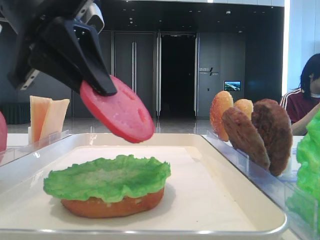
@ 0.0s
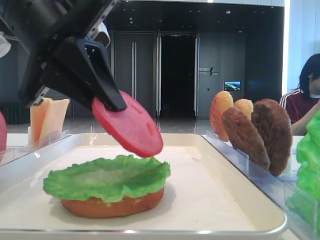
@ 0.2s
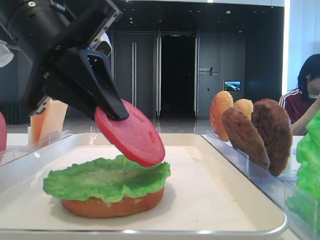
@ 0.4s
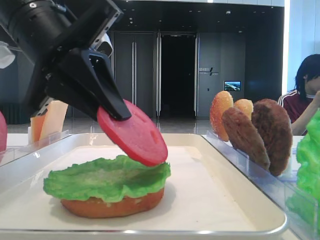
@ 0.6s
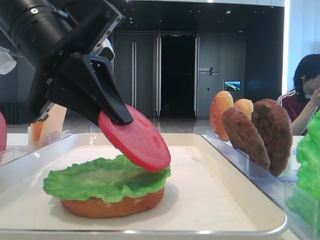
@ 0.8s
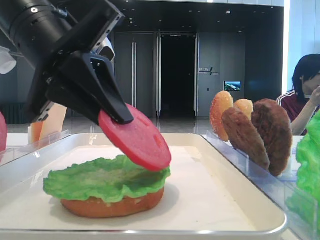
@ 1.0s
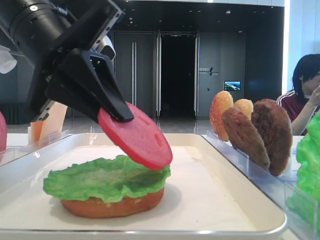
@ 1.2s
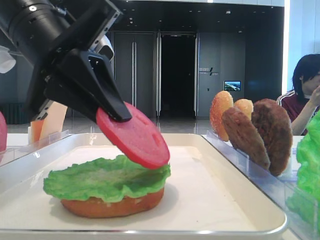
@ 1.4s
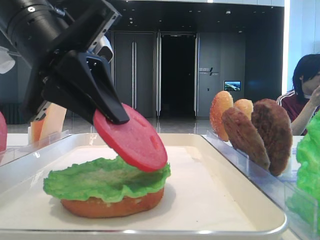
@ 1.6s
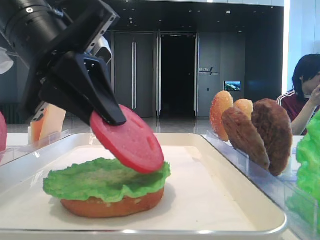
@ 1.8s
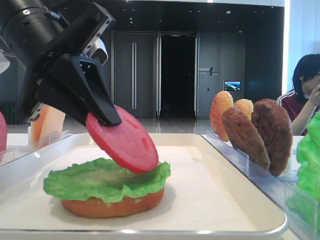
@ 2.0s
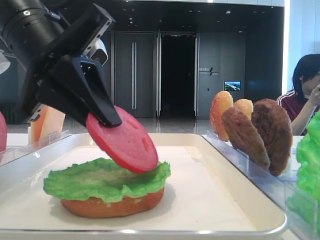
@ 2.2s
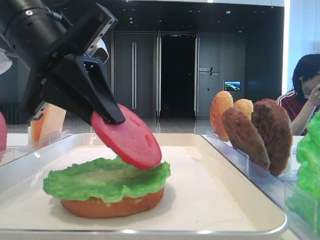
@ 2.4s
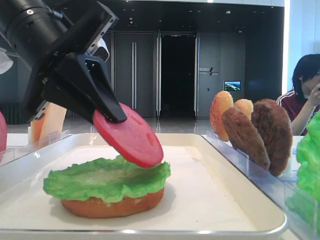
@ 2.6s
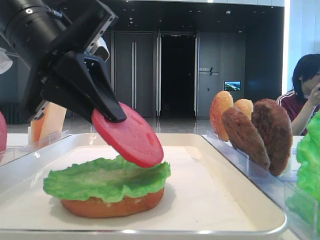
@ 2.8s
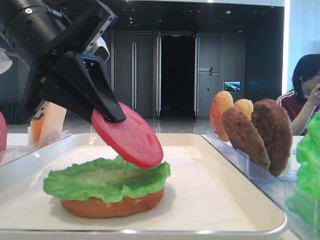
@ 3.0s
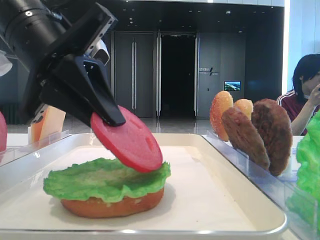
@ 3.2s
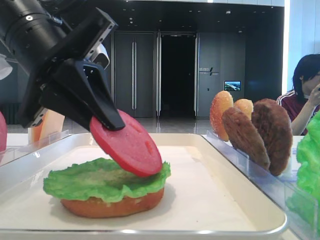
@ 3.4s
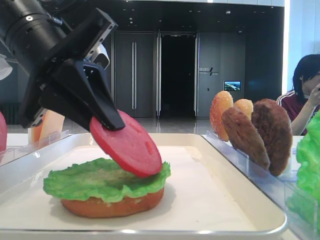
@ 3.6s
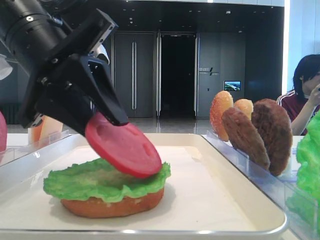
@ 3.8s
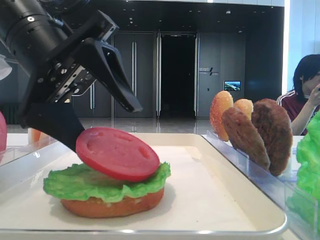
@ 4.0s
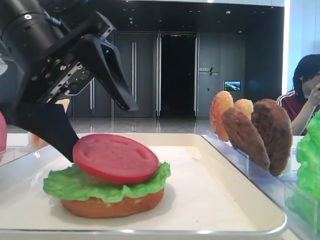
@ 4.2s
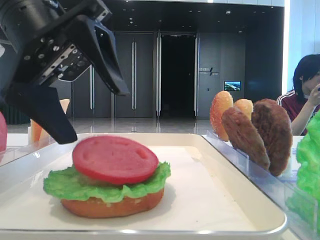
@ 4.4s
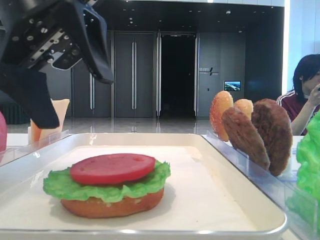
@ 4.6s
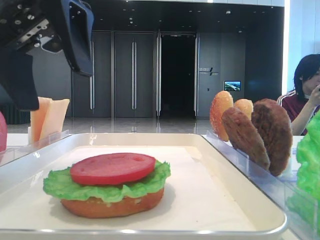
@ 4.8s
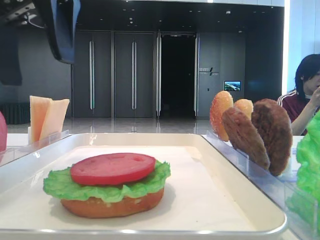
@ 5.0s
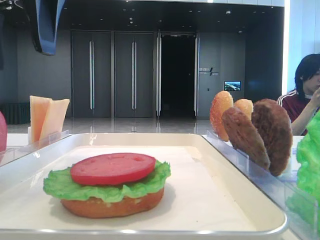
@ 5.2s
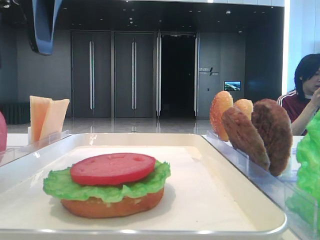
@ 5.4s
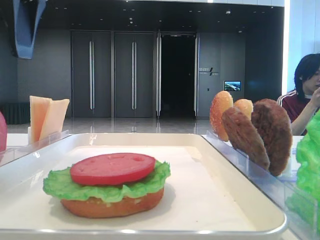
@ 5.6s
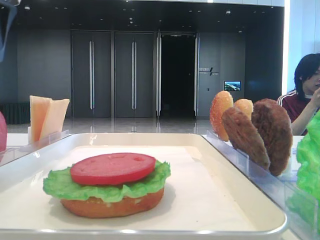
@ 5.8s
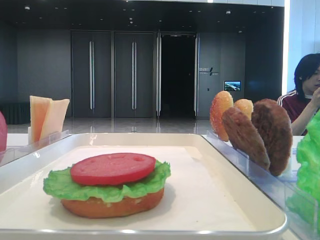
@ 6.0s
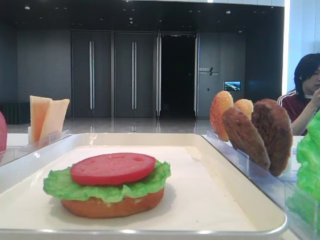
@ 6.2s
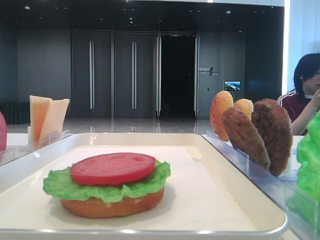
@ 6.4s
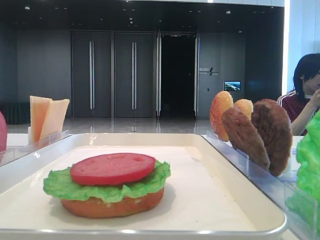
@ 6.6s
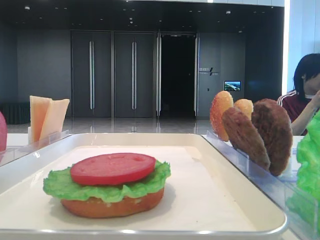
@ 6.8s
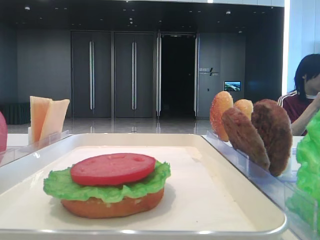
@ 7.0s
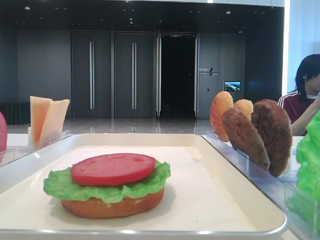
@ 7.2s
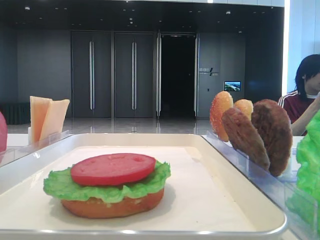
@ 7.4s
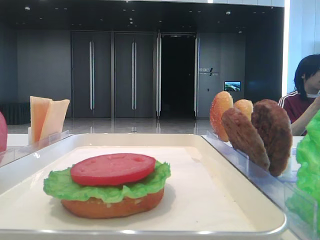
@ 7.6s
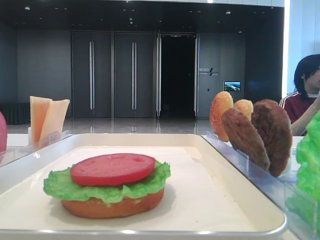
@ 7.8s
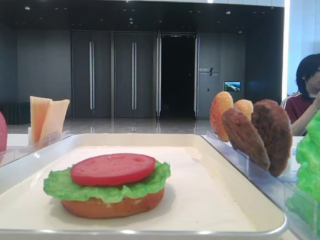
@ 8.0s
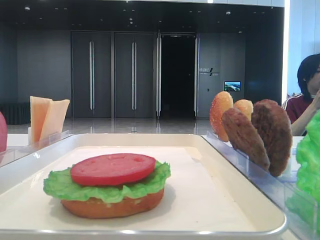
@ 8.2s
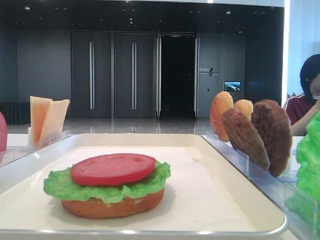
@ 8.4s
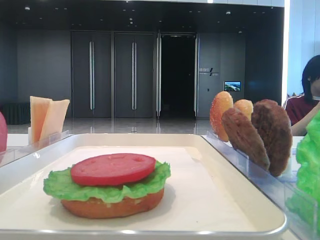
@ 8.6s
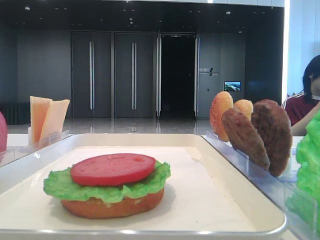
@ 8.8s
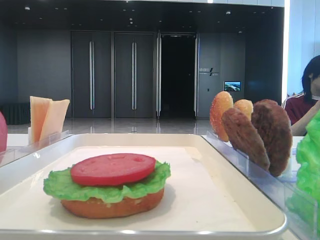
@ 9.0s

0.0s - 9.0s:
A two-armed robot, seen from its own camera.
Step, 0.0s - 4.4s: Place the tomato slice on the lettuce leaf with the left hand.
0.0s - 1.6s: The grippers move only a little.
1.6s - 3.0s: Both grippers stay put.
3.0s - 4.4s: The left gripper opens up.
4.4s - 6.0s: The left gripper goes approximately 15 cm to the left and upward.
7.6s - 9.0s: The grippers stay close to where they were, moving slightly.

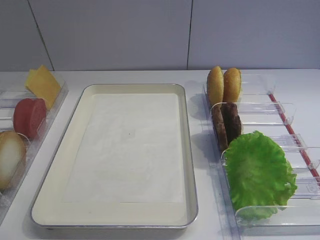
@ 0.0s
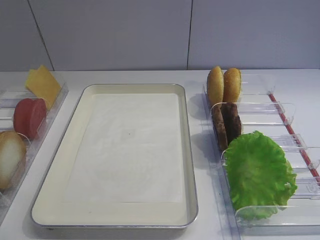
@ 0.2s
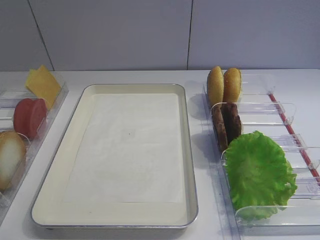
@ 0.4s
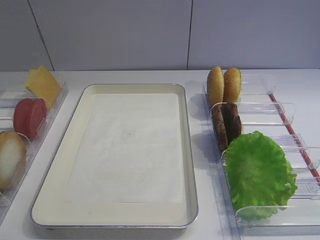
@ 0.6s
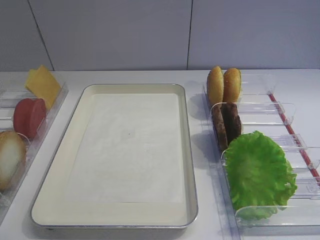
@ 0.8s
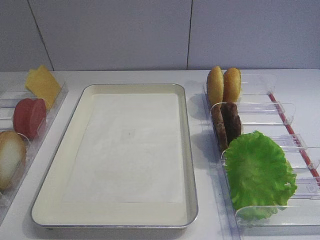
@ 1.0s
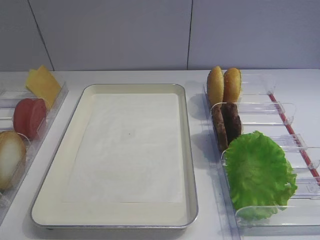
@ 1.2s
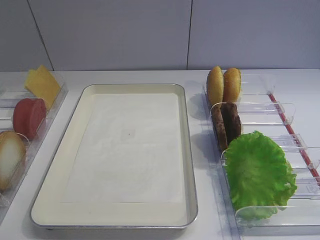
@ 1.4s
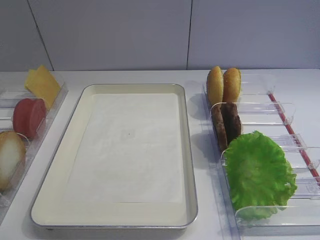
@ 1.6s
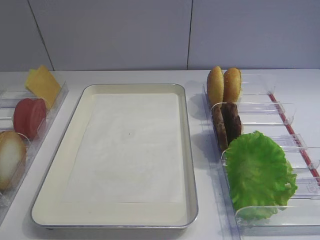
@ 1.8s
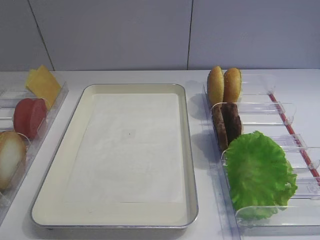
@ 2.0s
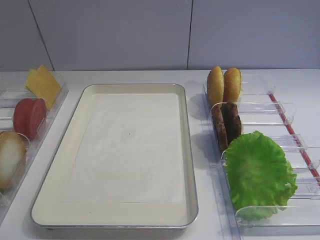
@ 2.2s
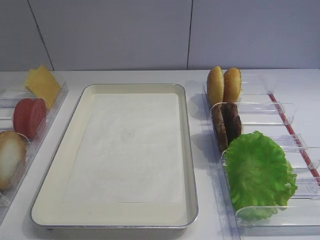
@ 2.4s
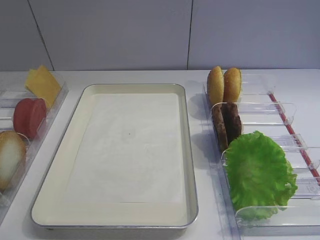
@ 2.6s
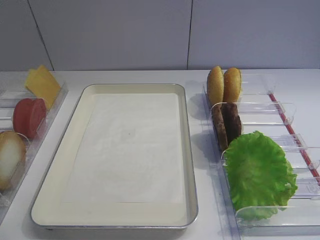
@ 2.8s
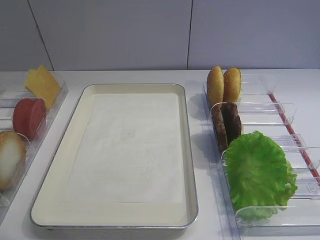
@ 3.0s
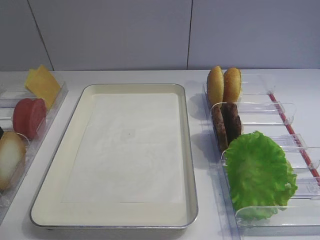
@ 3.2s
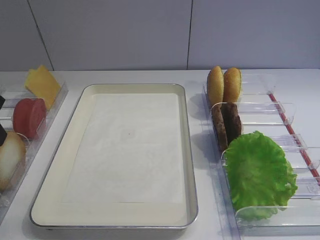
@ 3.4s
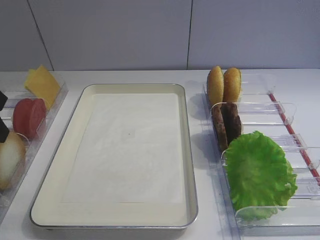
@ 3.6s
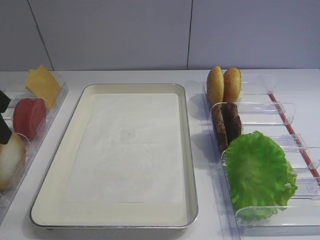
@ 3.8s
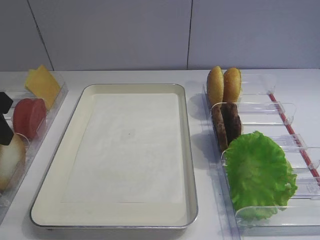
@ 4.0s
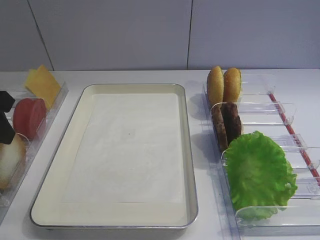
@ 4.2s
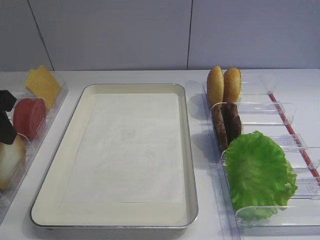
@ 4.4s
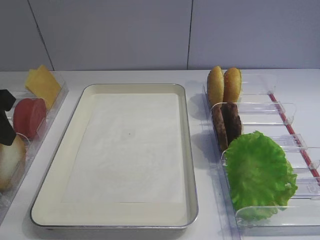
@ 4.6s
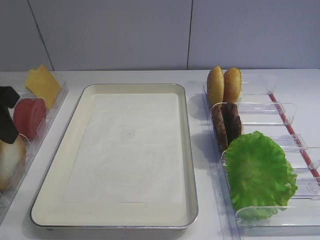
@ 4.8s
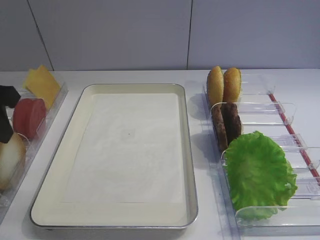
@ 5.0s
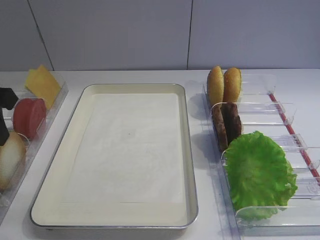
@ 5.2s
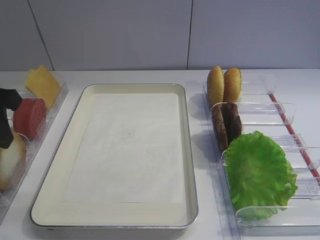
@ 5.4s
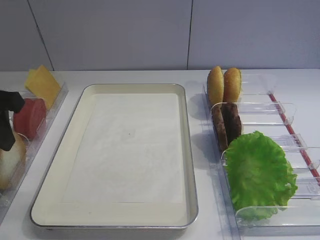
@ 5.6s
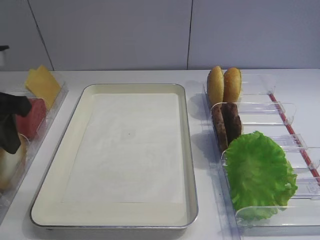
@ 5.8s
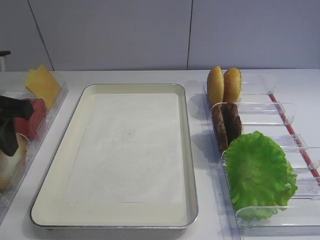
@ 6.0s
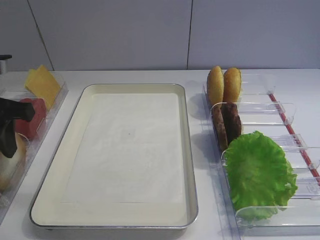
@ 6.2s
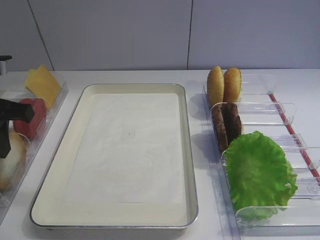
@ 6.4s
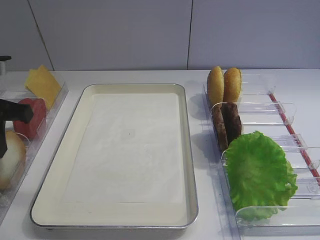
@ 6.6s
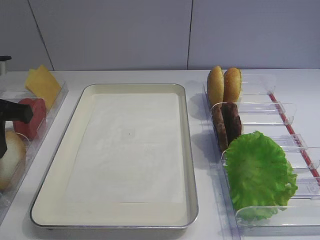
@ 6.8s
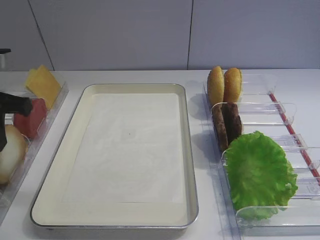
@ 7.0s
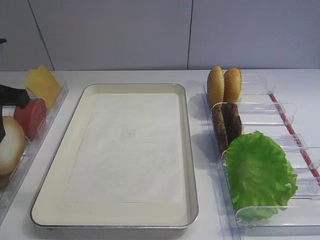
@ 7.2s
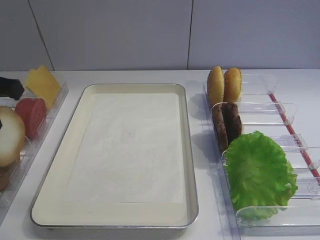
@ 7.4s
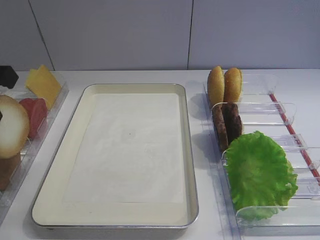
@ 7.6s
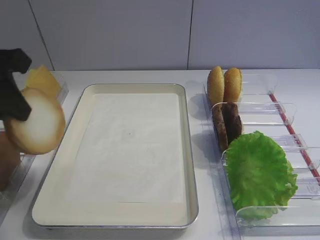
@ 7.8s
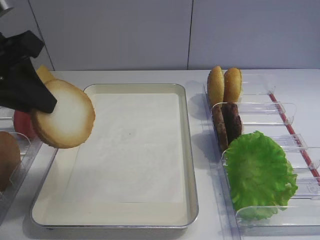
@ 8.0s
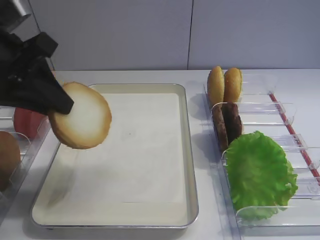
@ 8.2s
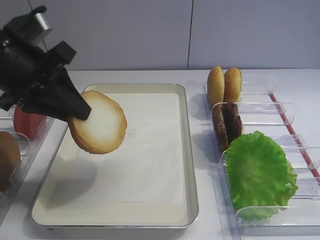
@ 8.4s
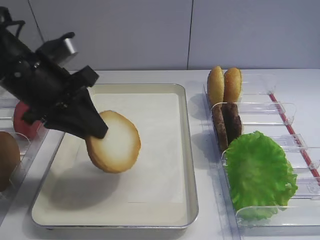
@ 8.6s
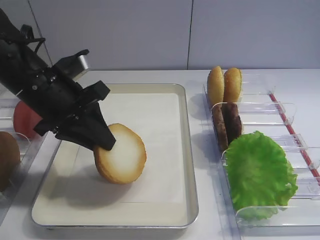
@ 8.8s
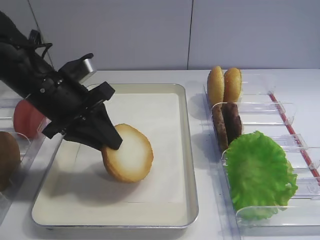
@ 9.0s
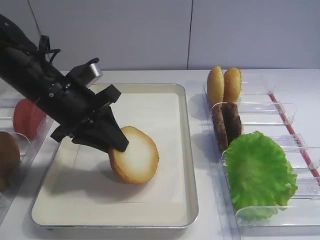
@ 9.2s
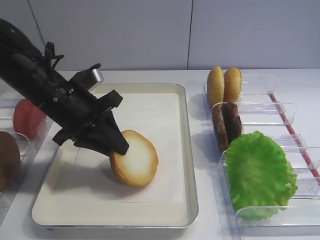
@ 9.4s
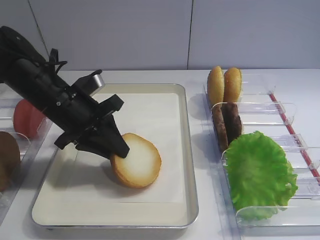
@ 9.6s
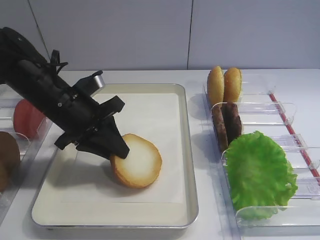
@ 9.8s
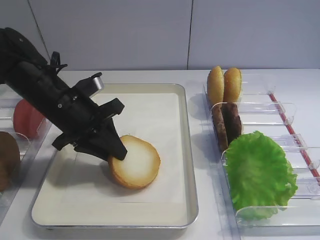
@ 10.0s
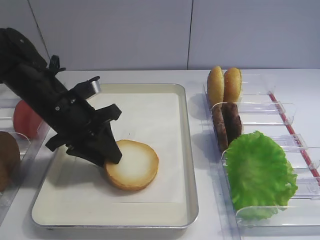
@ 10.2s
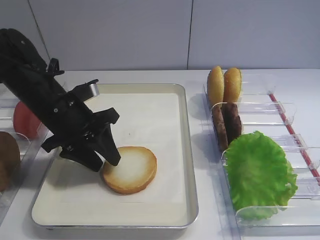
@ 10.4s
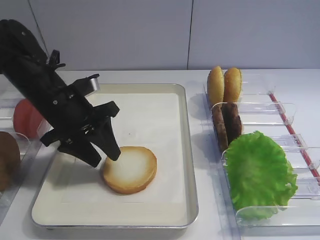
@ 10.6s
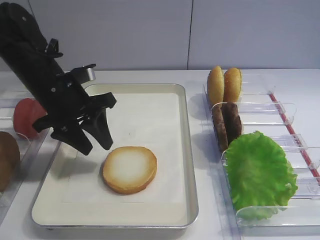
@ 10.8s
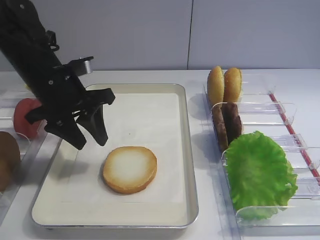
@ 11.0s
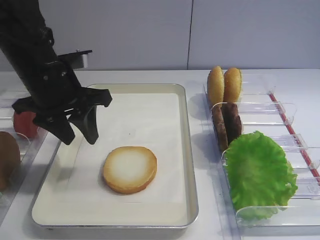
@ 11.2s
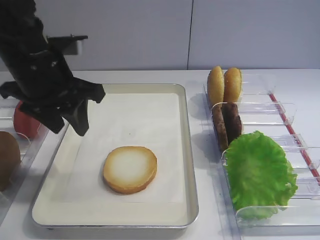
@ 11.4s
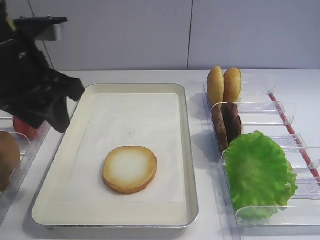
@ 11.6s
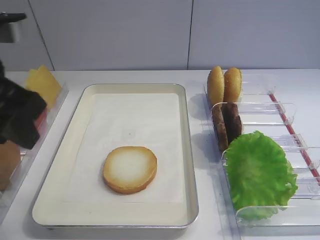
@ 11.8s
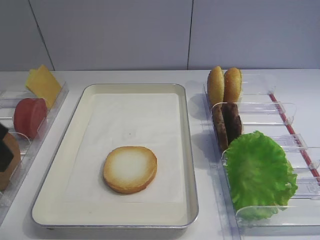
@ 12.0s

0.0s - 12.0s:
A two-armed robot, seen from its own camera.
Step, 0.0s - 7.2s: Pick up the bread slice with the left gripper.
Step, 7.4s - 11.2s: Place the bread slice on the tray with the left gripper.
3.0s - 6.0s: The grippers stay close to where they were, moving slightly.
6.0s - 7.6s: The left gripper travels upward by about 5 cm, and closes up.
7.6s - 9.0s: The left gripper travels downward, forward and to the right by about 15 cm.
9.0s - 10.4s: The left gripper opens its fingers.
10.4s - 12.0s: The left gripper shifts some 25 cm backward and upward.

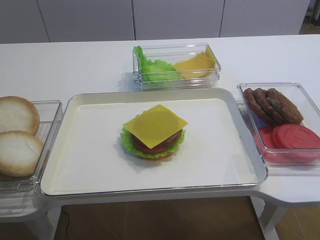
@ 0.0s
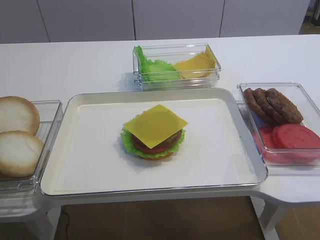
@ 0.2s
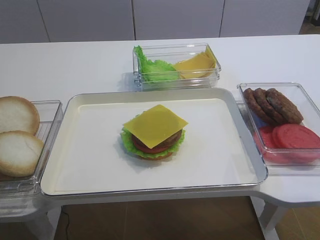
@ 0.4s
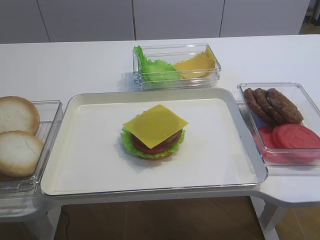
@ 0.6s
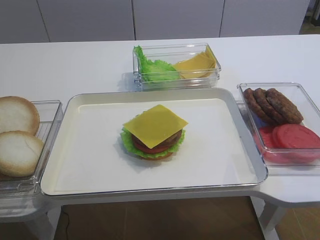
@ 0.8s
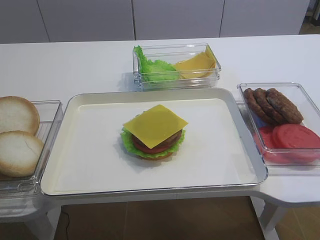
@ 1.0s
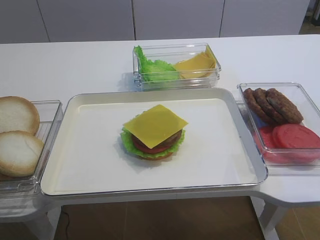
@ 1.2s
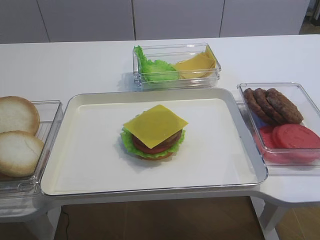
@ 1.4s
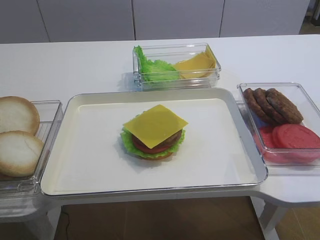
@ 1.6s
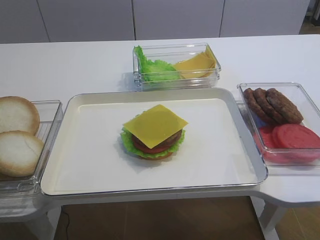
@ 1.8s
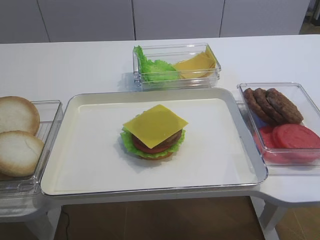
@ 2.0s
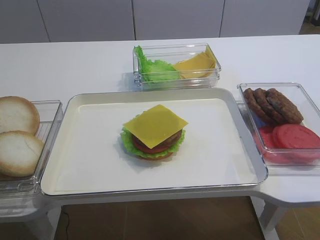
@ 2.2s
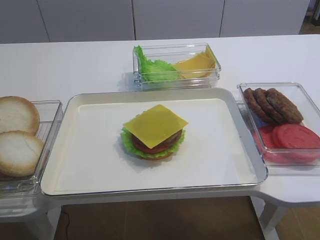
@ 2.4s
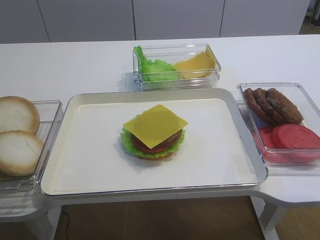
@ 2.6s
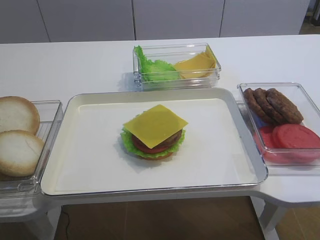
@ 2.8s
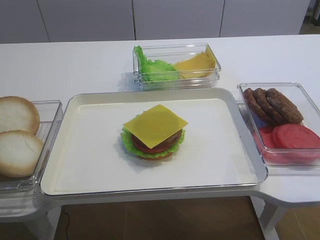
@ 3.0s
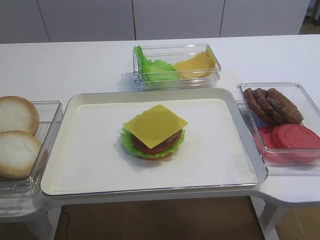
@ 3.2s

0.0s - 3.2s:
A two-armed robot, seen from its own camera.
0.0s - 1.6s: Both grippers stay put.
